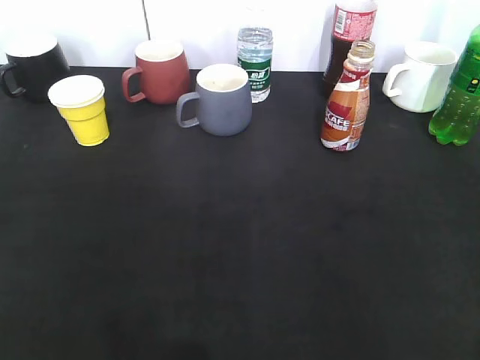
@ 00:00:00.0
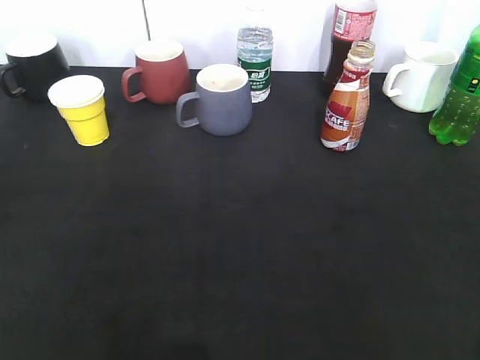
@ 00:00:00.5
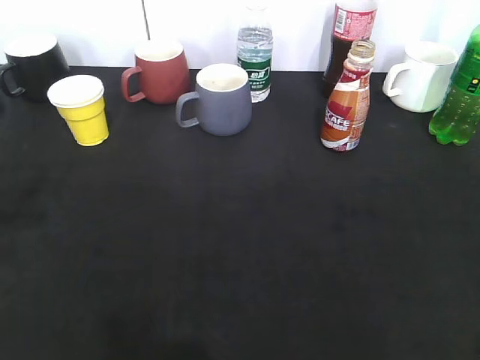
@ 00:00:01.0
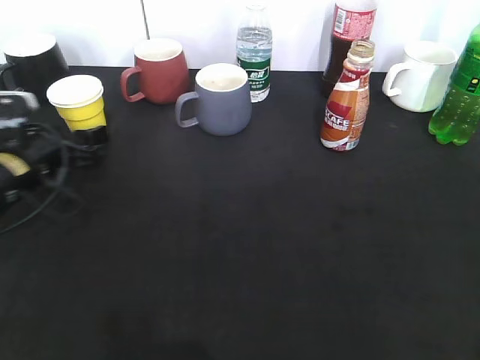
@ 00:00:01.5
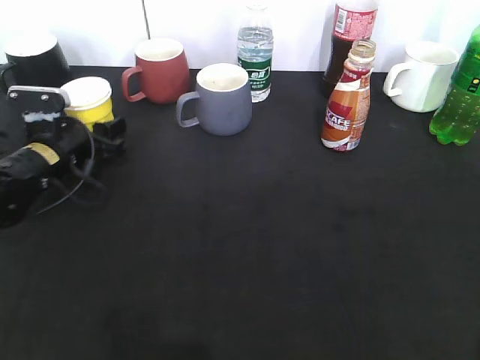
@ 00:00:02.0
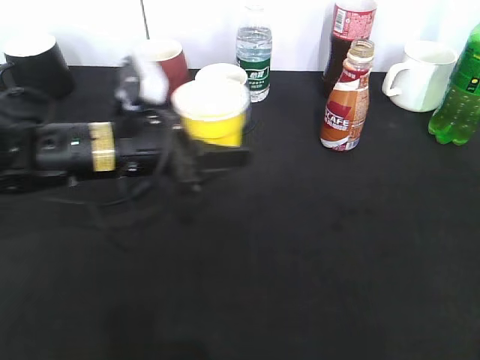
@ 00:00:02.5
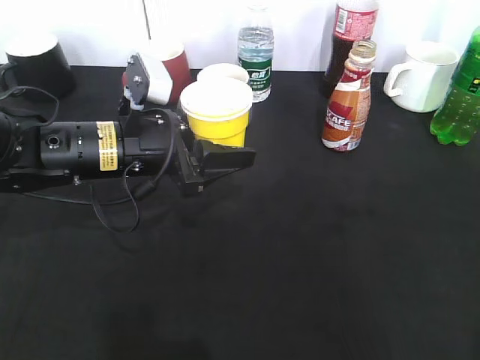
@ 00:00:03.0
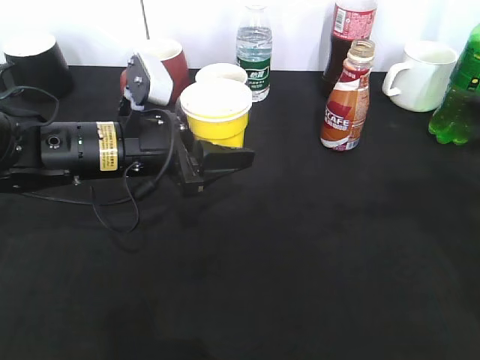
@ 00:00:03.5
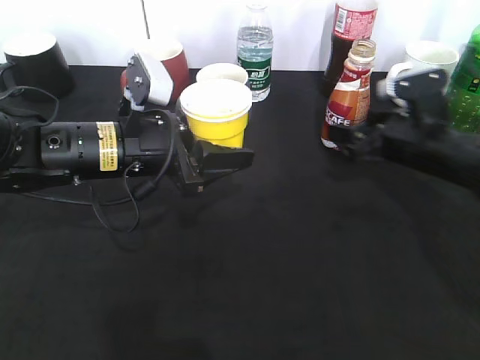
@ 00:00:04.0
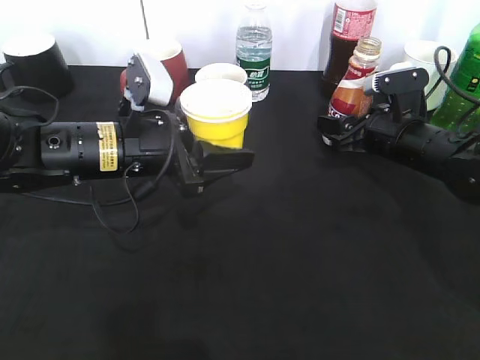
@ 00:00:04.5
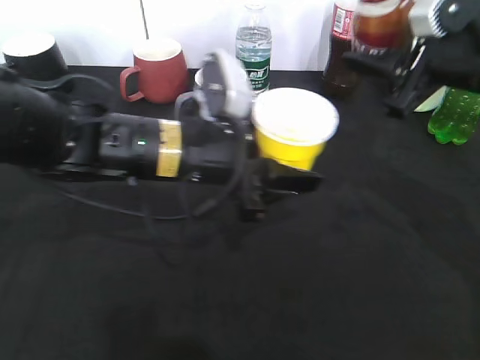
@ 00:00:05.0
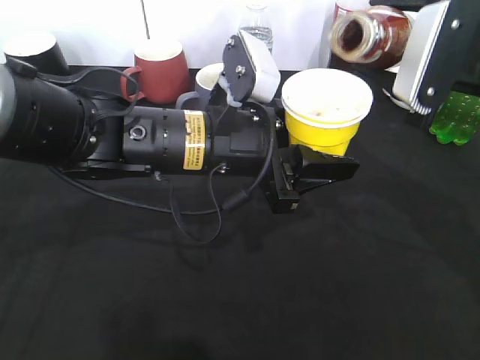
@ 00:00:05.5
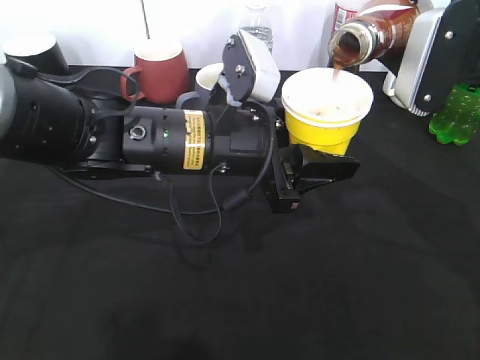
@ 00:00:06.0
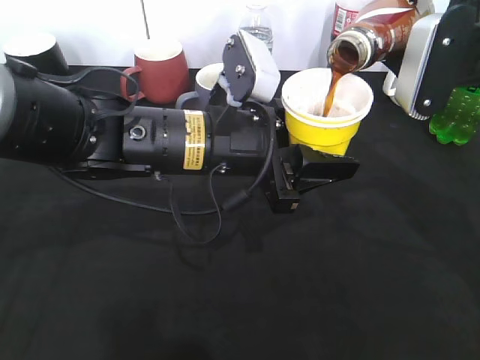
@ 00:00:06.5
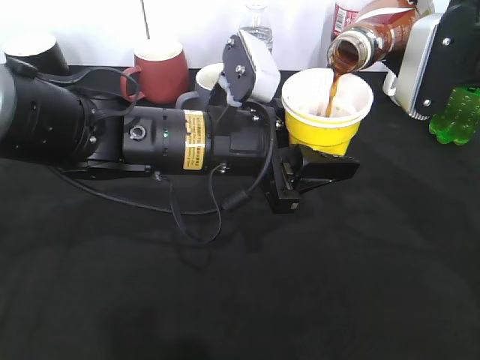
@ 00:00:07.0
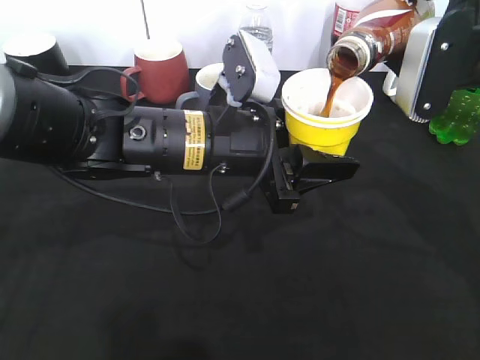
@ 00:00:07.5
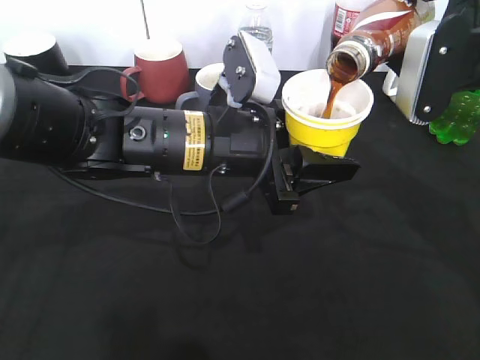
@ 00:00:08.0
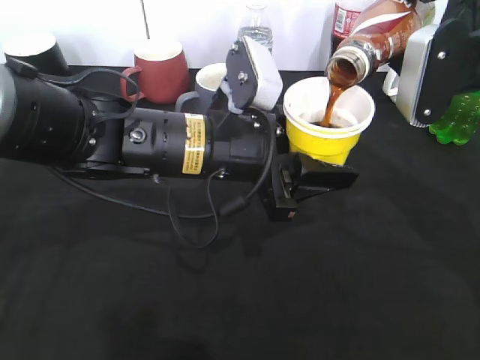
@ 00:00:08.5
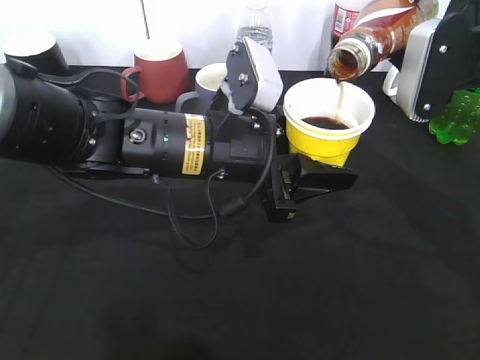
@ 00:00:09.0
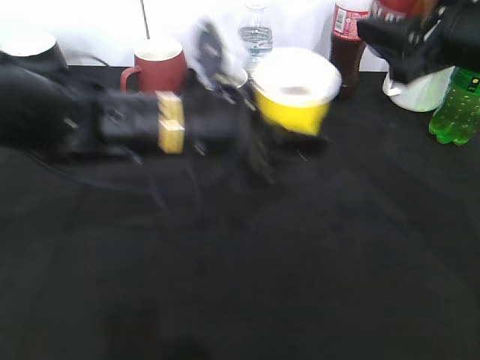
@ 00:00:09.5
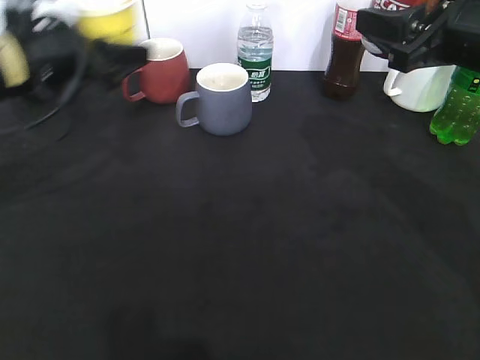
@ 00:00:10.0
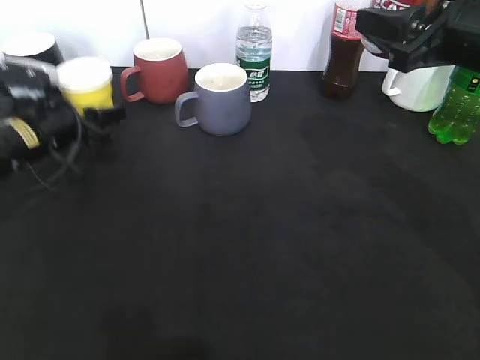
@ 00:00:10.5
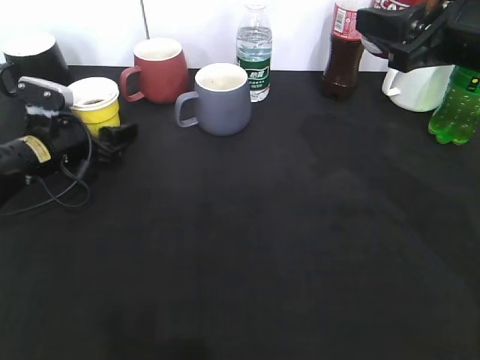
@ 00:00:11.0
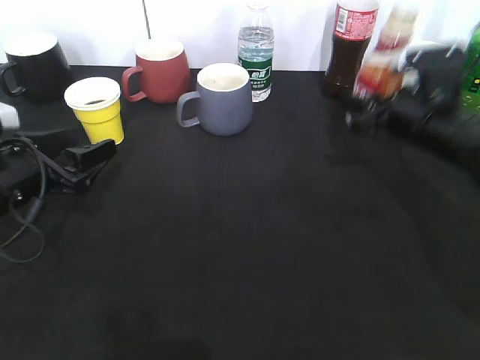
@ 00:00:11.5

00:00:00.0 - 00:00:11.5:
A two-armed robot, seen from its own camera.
Step, 00:00:01.0 - 00:00:01.5: Grasp the yellow paper cup with left gripper.
Step, 00:00:02.0 - 00:00:03.0: Lift the yellow paper cup with left gripper.
Step, 00:00:03.5 - 00:00:04.0: Grasp the bottle with coffee with right gripper.
Step, 00:00:05.0 - 00:00:09.0: Pour the coffee from bottle to cup with right gripper.
Step, 00:00:09.5 - 00:00:11.0: Place the yellow paper cup on the table with left gripper.
00:00:00.0 - 00:00:02.0: The left gripper moves forward and downward, about 40 cm, and closes its fingers.
00:00:02.0 - 00:00:04.0: The left gripper shifts approximately 15 cm to the right, upward and backward. Meanwhile the right gripper travels forward and downward by about 40 cm, and opens its fingers.
00:00:04.0 - 00:00:06.0: The left gripper heads to the right, covering some 10 cm. The right gripper travels upward by approximately 15 cm, and closes its fingers.
00:00:06.0 - 00:00:07.5: The grippers stay close to where they were, moving slightly.
00:00:09.5 - 00:00:11.5: The left gripper is displaced to the left by approximately 20 cm, and opens its fingers; the right gripper goes some 15 cm downward and forward.

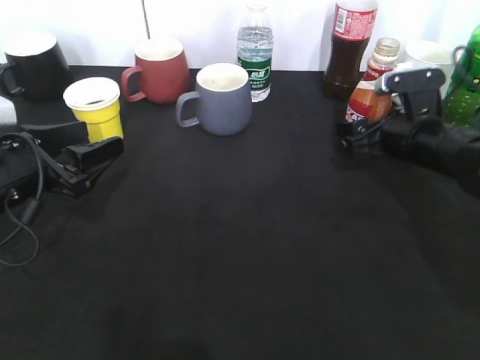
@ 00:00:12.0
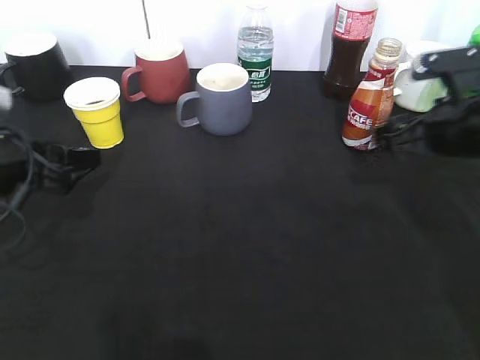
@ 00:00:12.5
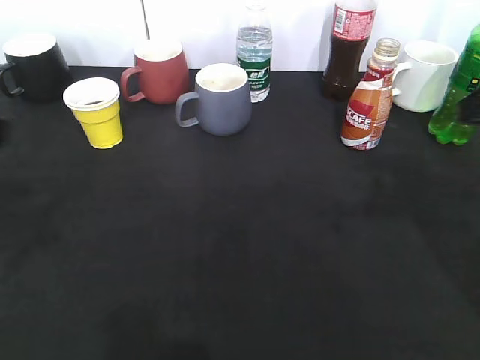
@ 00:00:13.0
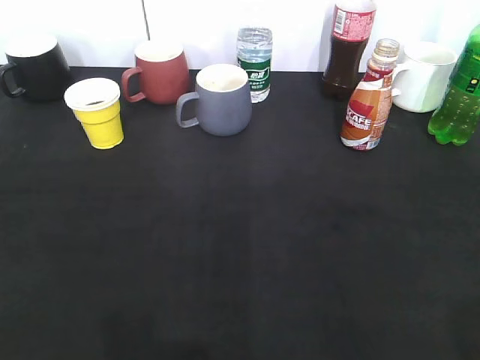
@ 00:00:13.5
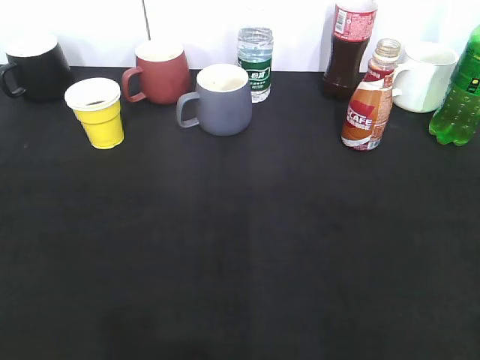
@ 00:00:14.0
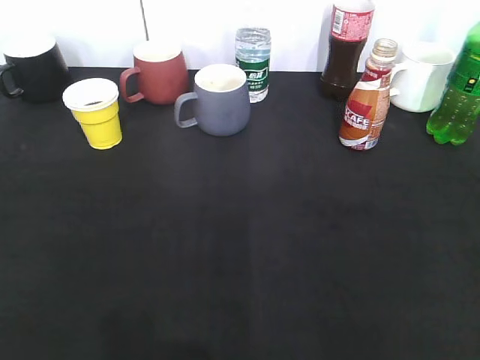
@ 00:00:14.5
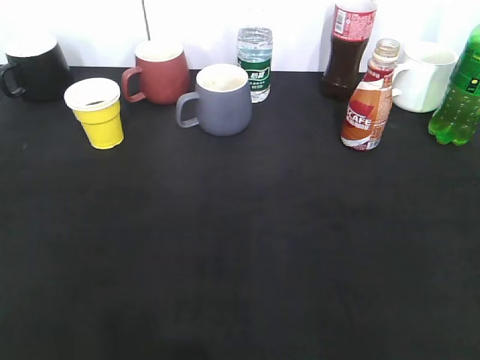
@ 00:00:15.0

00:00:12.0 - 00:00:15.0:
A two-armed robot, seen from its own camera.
00:00:12.0 - 00:00:13.5: The grippers both shift backward and upward by some 35 cm. The left gripper closes.
